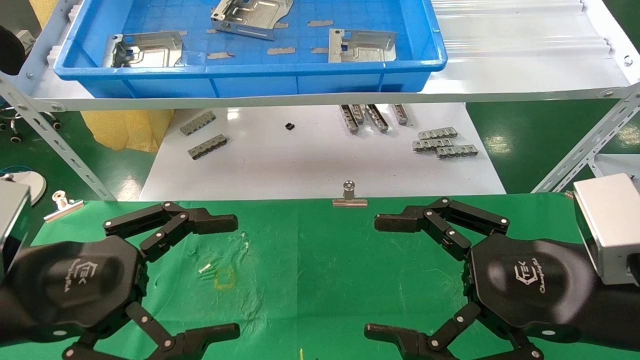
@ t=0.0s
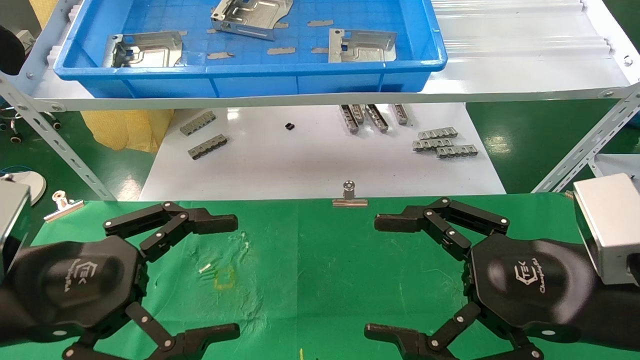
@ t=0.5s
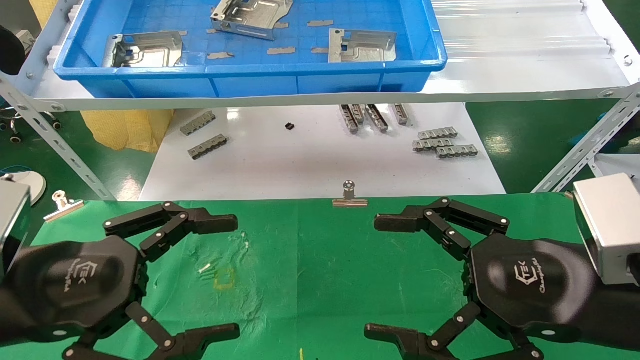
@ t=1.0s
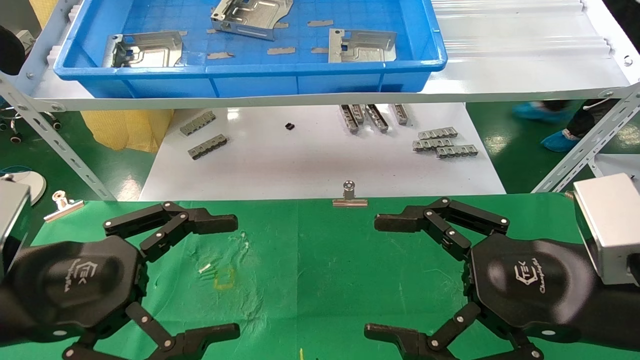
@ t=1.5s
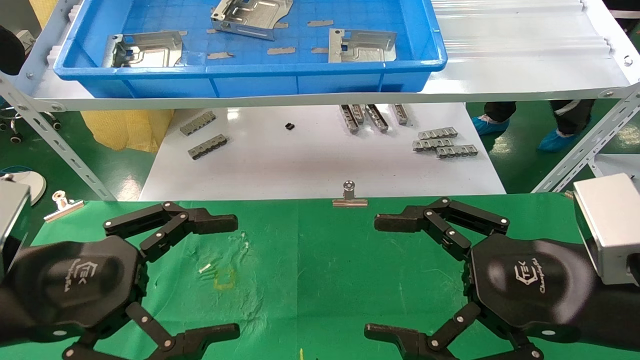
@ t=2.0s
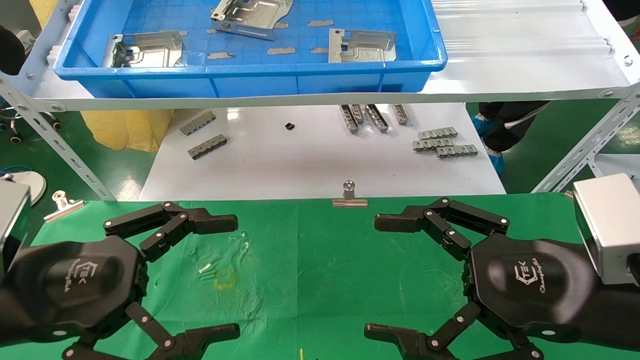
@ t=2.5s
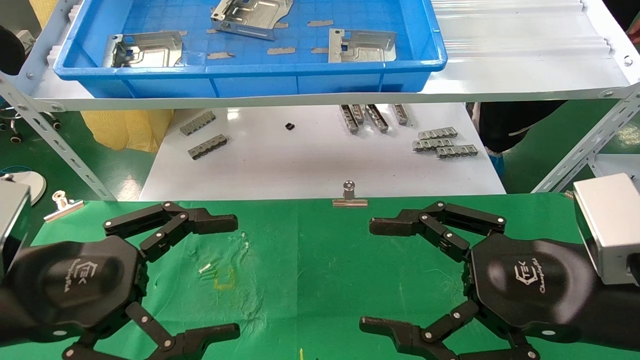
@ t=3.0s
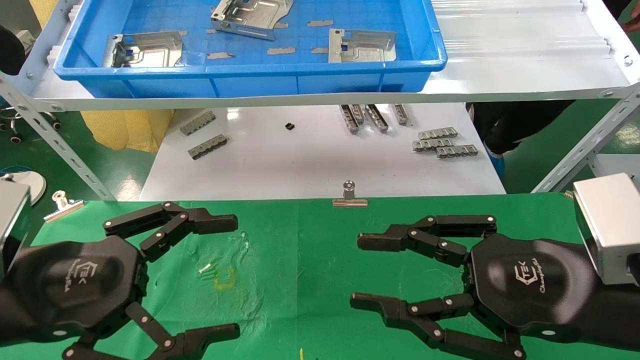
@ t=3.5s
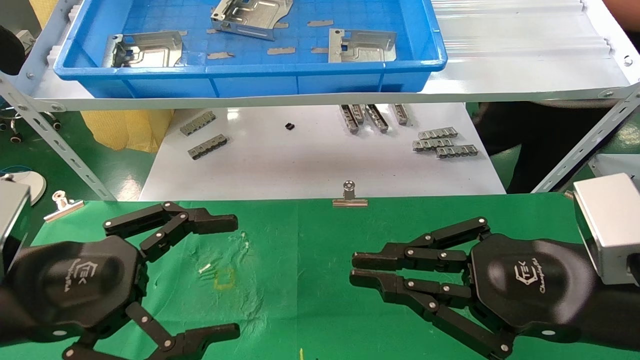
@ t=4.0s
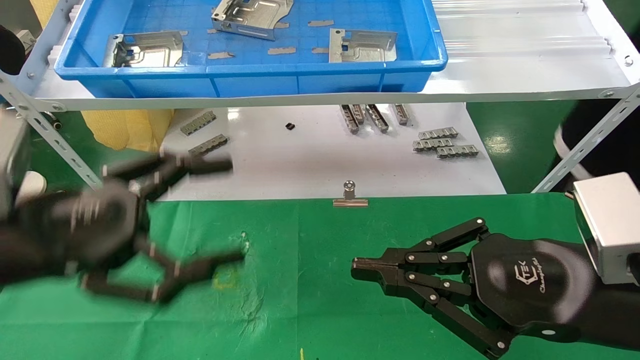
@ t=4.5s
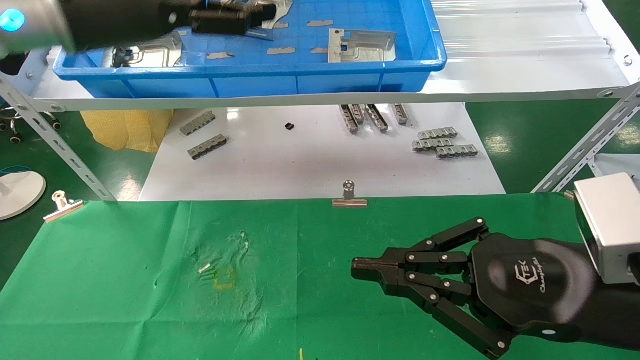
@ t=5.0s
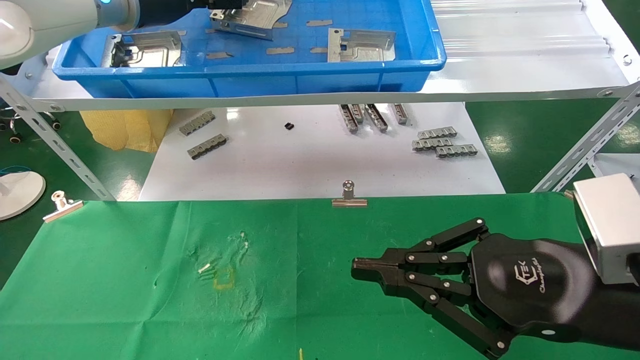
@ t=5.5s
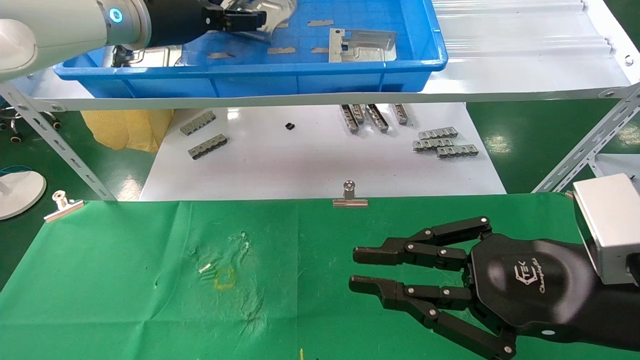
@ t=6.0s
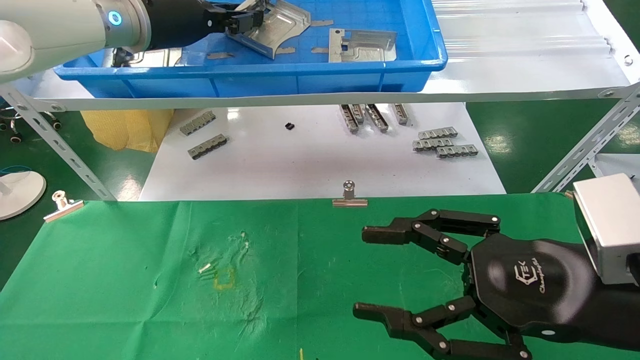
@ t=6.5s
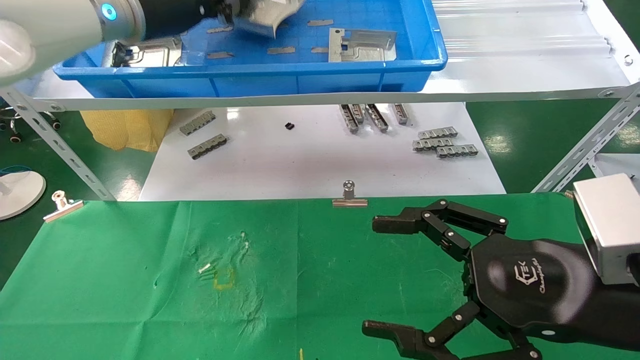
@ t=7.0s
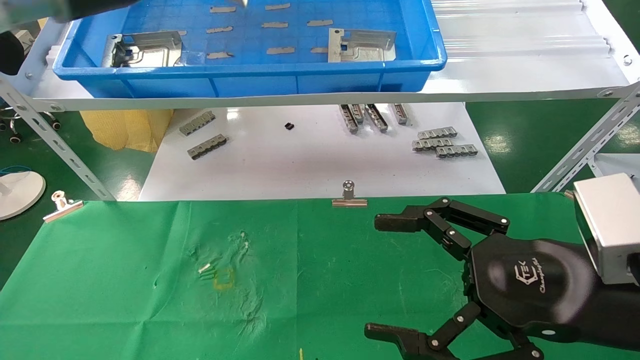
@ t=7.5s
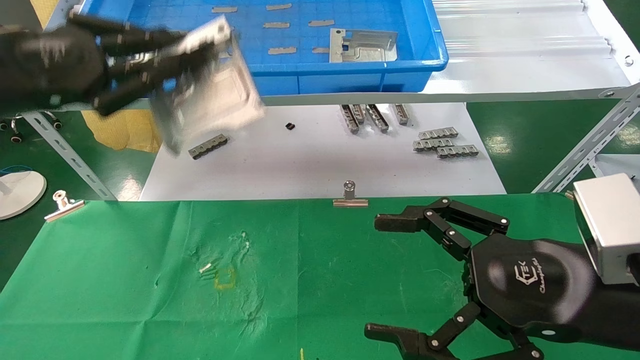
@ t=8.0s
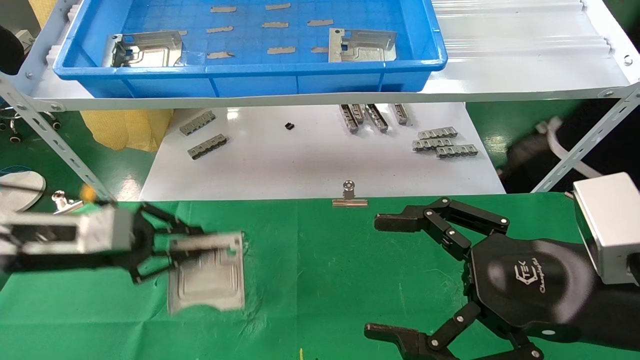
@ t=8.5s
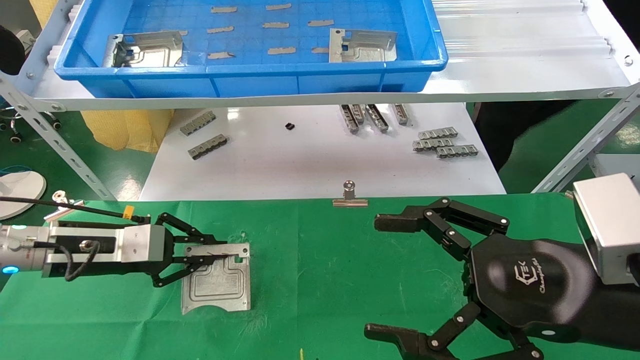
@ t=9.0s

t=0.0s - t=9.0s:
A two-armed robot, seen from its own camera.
Task of the whole recording: use the mechanical arm to pick up the parts and place them on the table.
Step, t=4.5s - t=6.5s: Pick up the hard drive bracket from the feeding area.
t=0.0s - t=2.0s: Both grippers stay put.
t=2.0s - t=4.5s: The right gripper closes up, while the left gripper is displaced upward by roughly 5 cm.
t=4.5s - t=7.0s: The right gripper opens up. Meanwhile the left gripper travels forward and upward by about 25 cm, and closes.
t=7.0s - t=9.0s: The left gripper travels downward by roughly 30 cm.

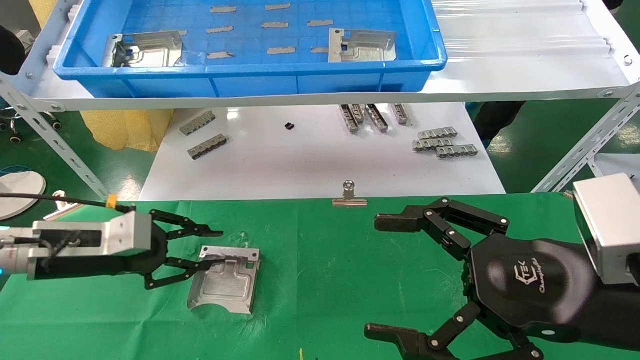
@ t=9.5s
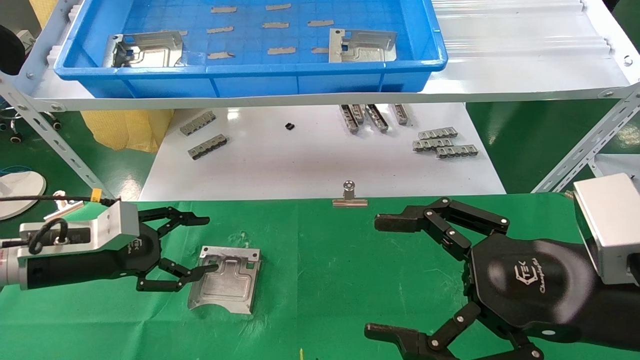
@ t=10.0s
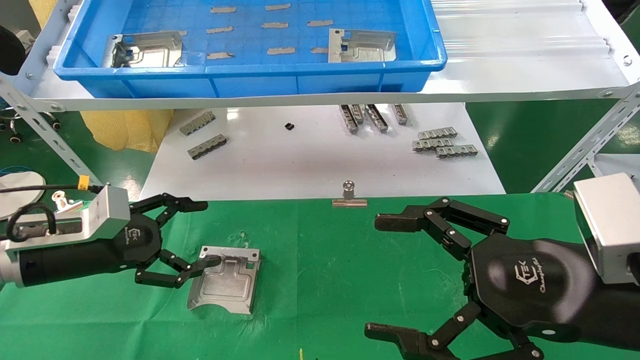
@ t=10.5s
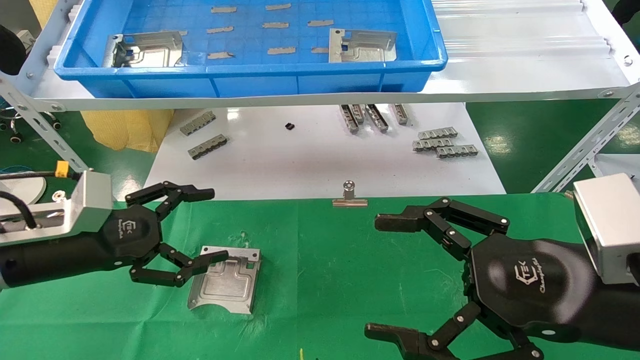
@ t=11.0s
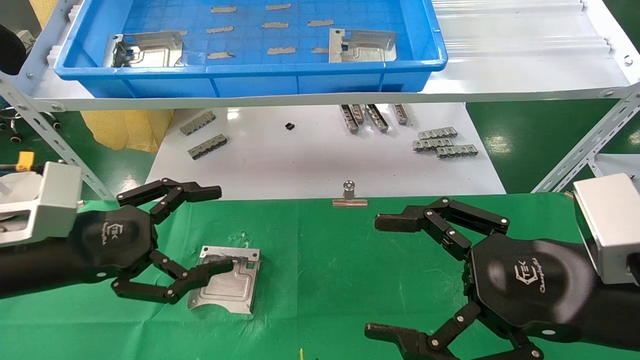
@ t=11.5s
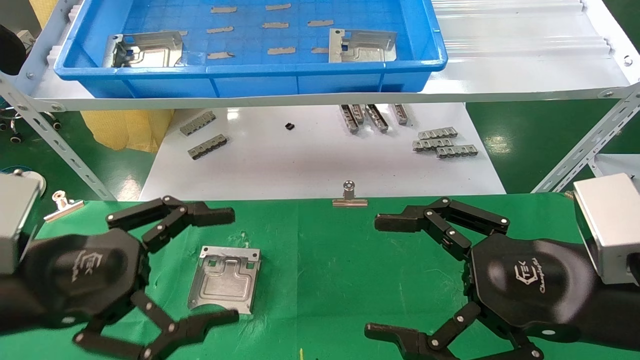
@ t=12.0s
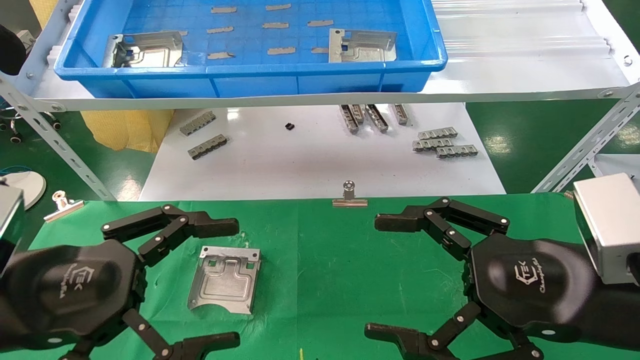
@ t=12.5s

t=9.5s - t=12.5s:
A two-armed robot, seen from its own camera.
Task of the whole recording: use the mechanical arm to pick up the parts and place them on the table.
t=9.5s - t=11.0s: The left gripper ends up about 5 cm from where it was, and opens.
t=11.0s - t=12.5s: The left gripper shifts roughly 10 cm backward.

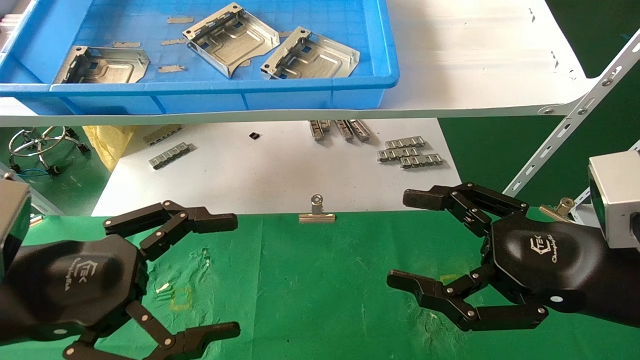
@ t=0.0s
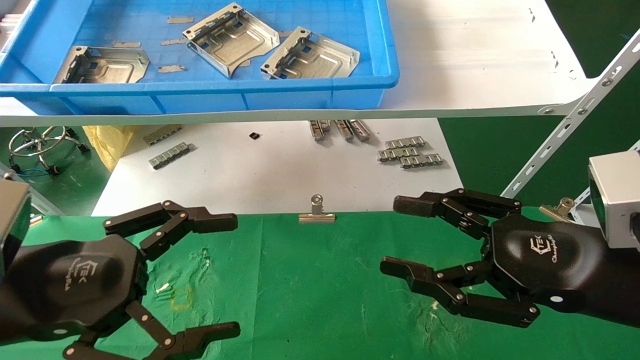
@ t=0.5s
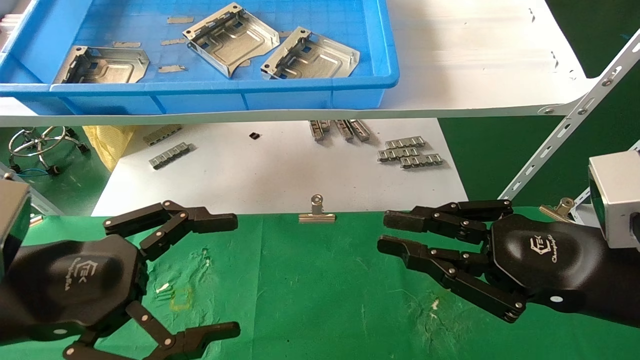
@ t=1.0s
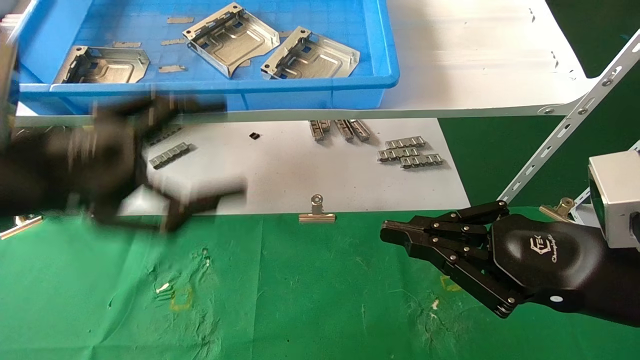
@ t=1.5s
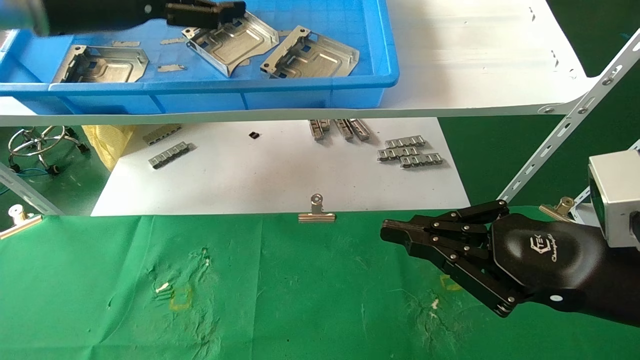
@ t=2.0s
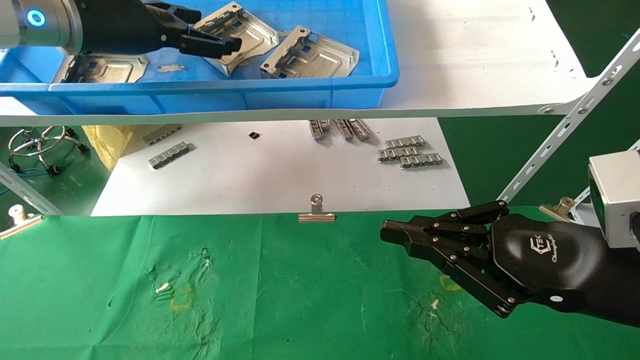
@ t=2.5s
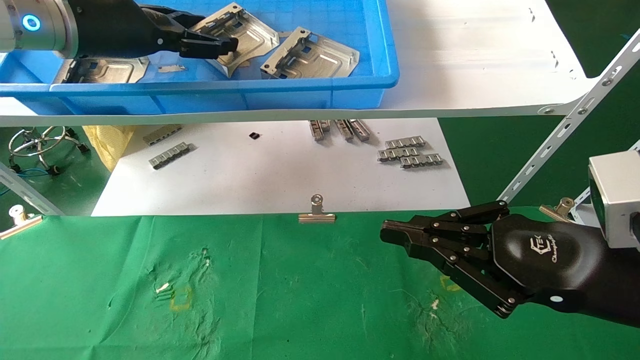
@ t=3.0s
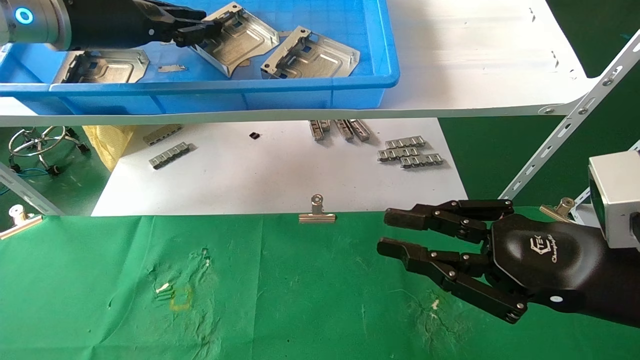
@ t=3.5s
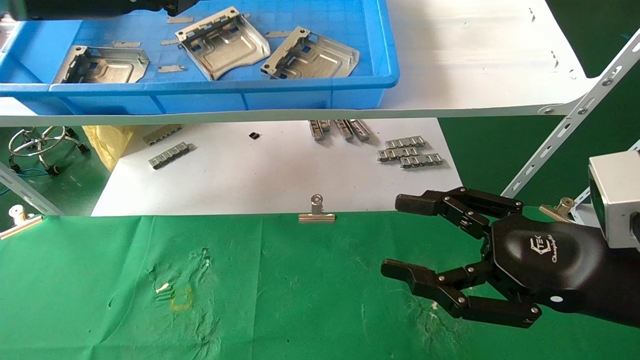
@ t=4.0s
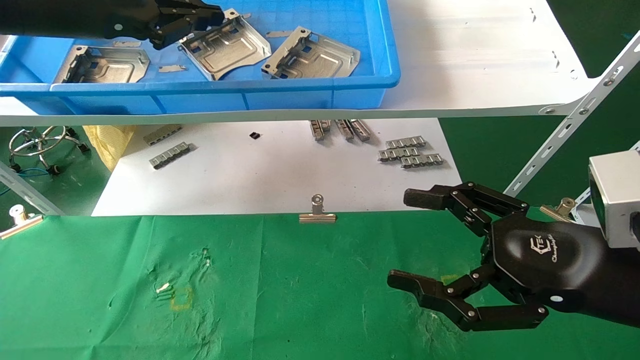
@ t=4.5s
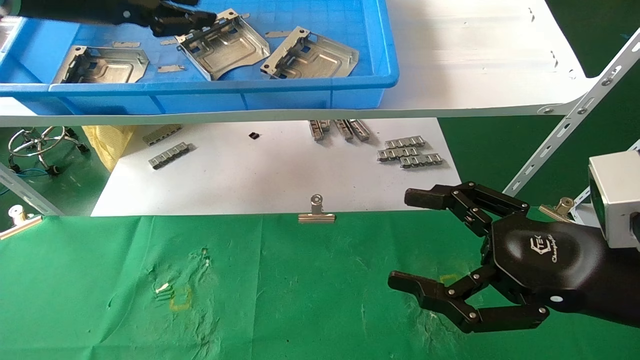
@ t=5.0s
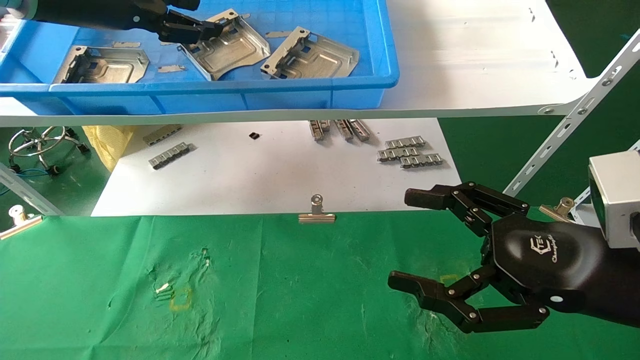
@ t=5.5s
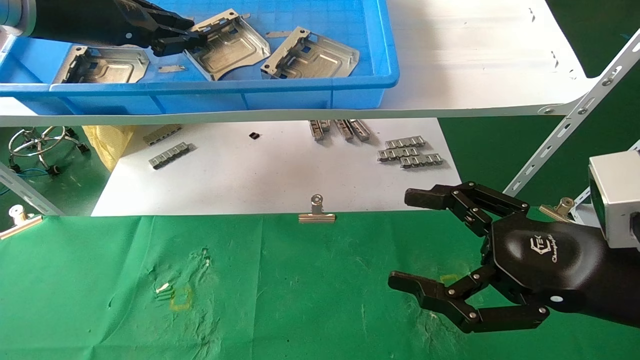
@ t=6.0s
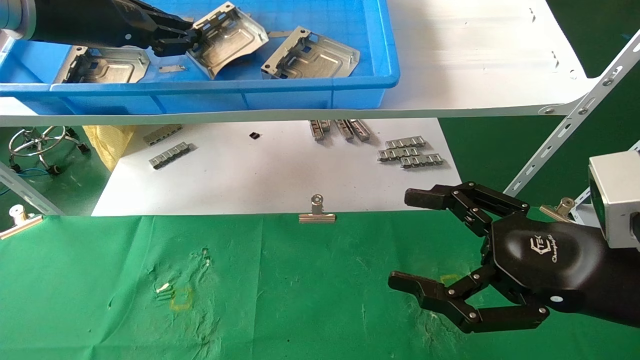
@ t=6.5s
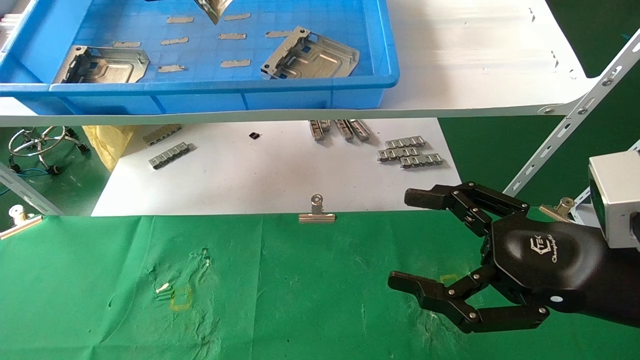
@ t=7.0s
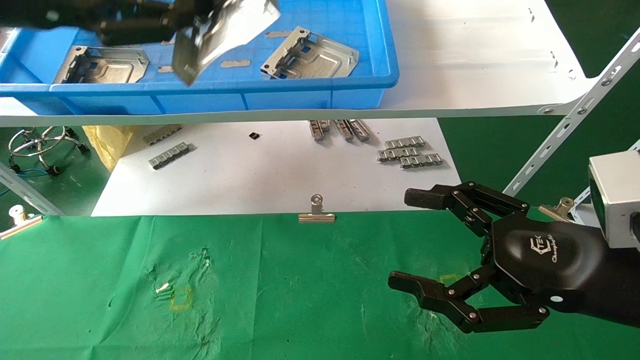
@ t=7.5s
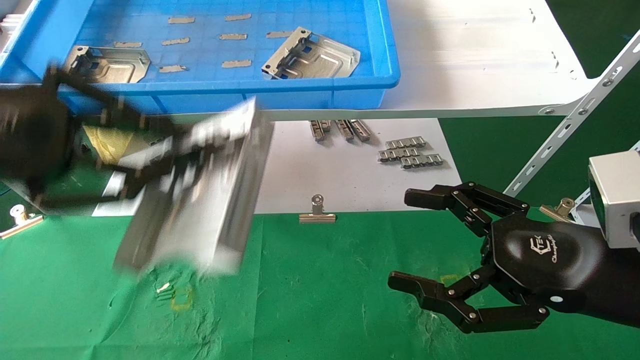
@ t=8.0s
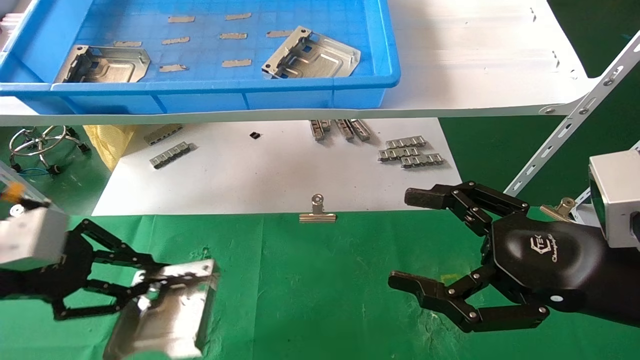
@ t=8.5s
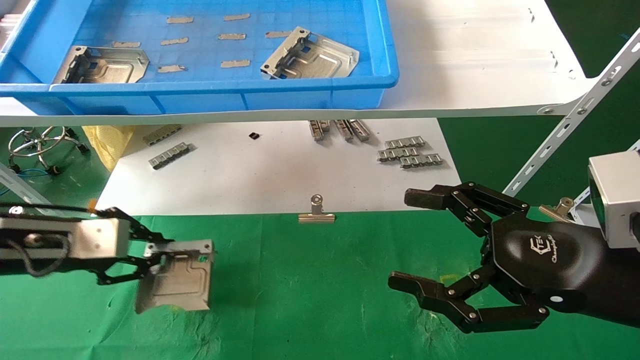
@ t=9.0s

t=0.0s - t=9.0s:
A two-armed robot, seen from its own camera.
Task of the whole recording: use the mechanical arm to pick up the parts and place them on the table.
Step, t=2.0s - t=6.0s: Pick up the hard drive bracket from the feeding area.
t=0.0s - t=2.0s: The left gripper travels upward and forward by roughly 30 cm; the right gripper closes its fingers.
t=2.0s - t=4.5s: The right gripper opens. The left gripper closes its fingers.
t=4.5s - t=7.0s: The left gripper opens, then closes once more.
t=7.0s - t=9.0s: The left gripper heads downward, covering some 30 cm.
